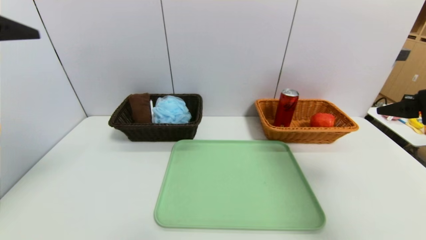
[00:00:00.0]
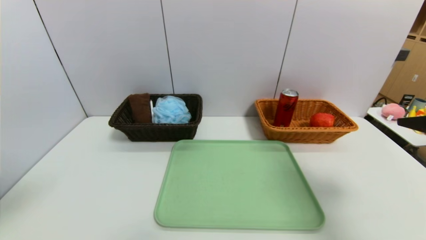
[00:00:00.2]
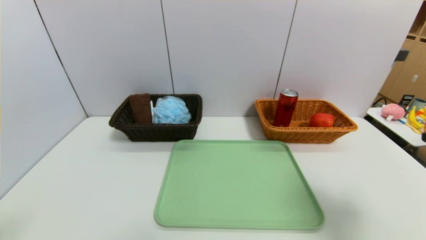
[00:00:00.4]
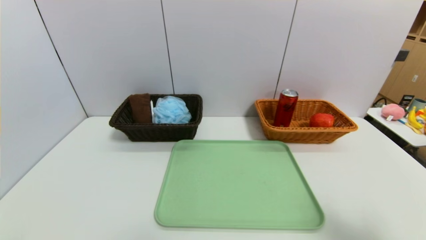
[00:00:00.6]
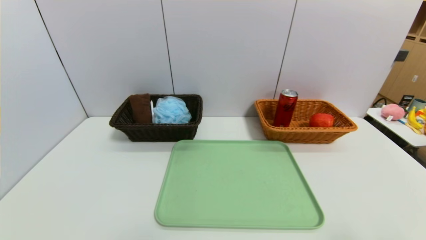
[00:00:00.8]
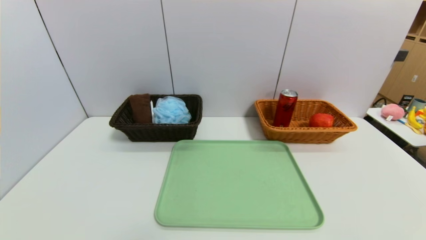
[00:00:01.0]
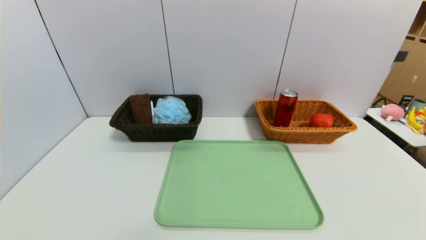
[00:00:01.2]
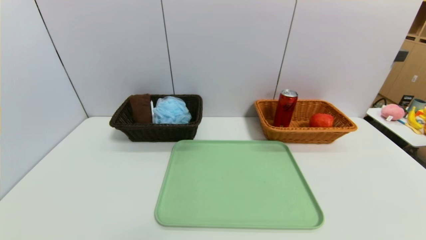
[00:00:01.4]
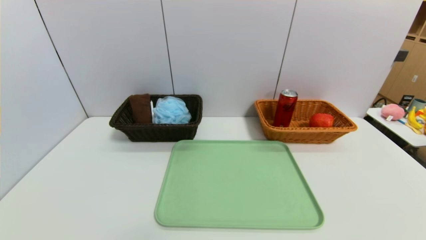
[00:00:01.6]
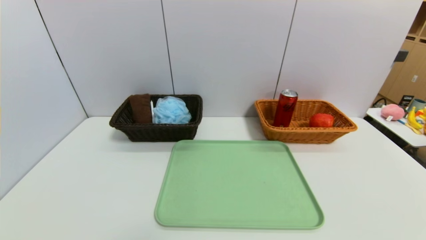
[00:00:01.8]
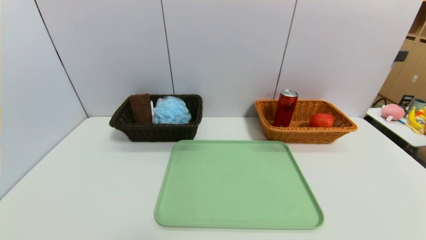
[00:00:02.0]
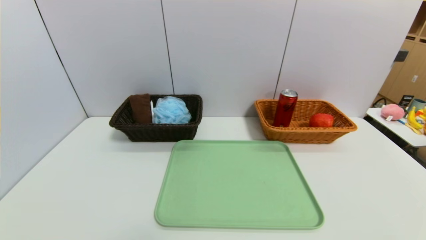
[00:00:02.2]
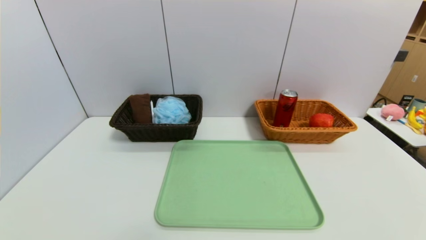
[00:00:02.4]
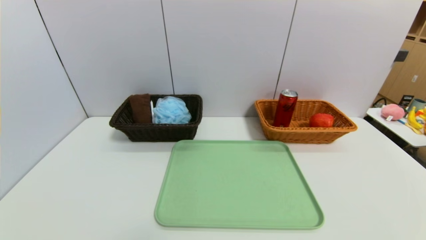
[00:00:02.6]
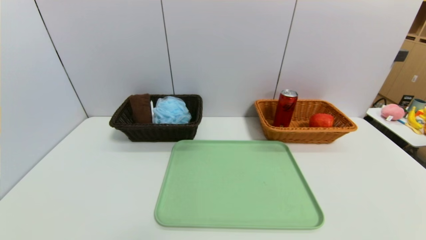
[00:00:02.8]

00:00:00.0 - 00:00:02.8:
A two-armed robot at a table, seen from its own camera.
Task of the whole recording: place the food in the right basket with the right gripper, and place the non food items in the left basket with the left gripper.
00:00:00.0 - 00:00:01.4: The left gripper is displaced downward and backward by approximately 30 cm. The right gripper is displaced backward and downward by about 30 cm.
